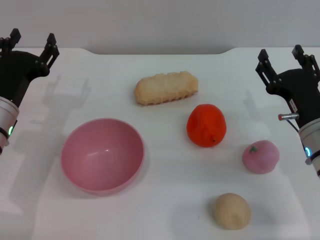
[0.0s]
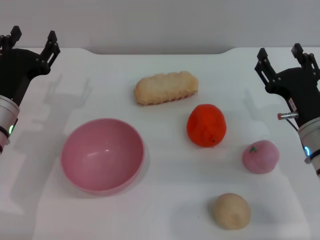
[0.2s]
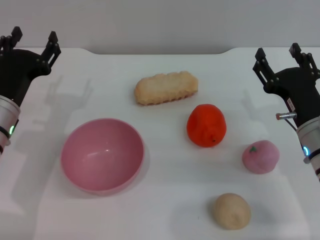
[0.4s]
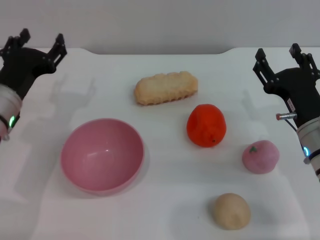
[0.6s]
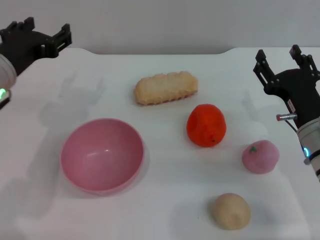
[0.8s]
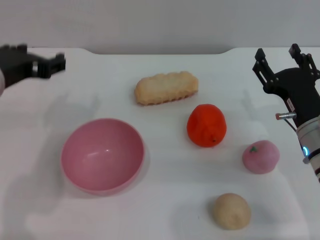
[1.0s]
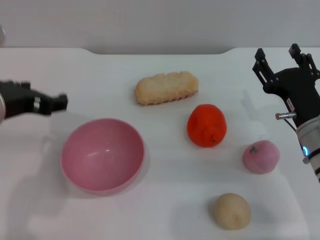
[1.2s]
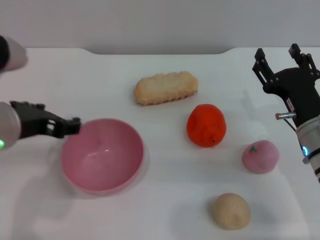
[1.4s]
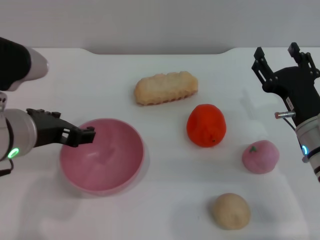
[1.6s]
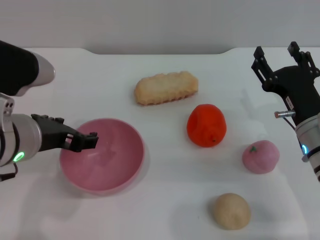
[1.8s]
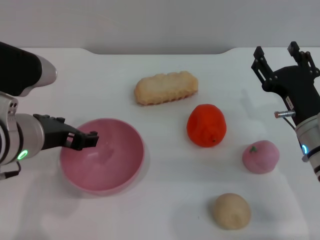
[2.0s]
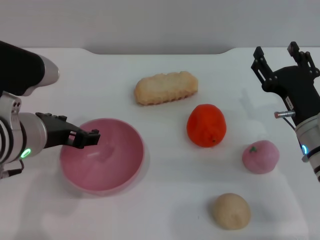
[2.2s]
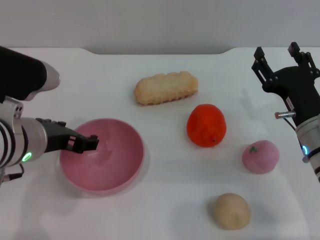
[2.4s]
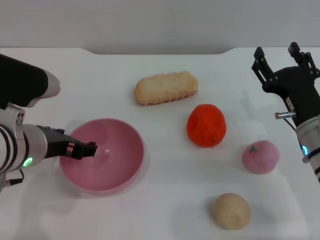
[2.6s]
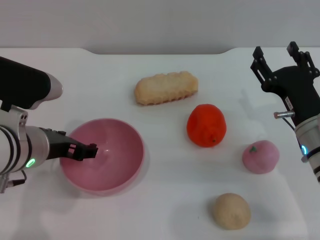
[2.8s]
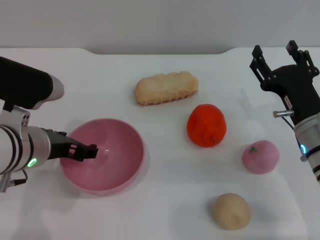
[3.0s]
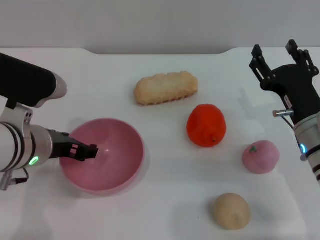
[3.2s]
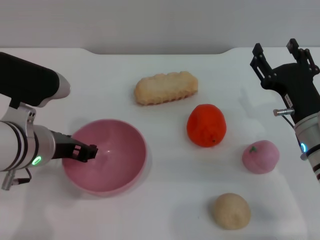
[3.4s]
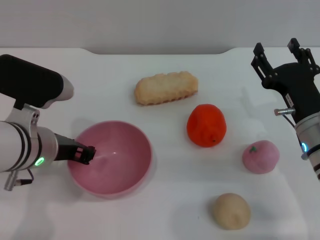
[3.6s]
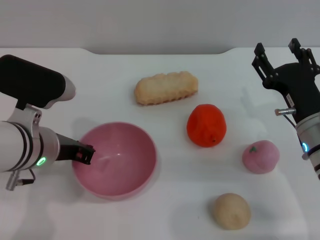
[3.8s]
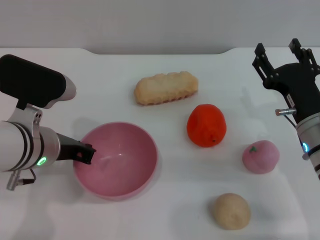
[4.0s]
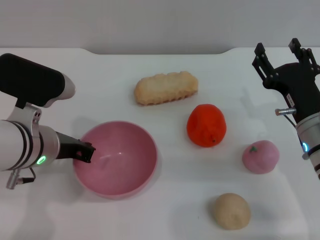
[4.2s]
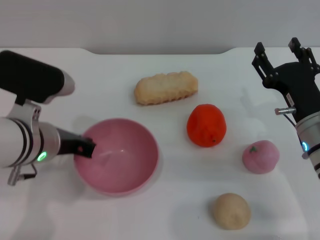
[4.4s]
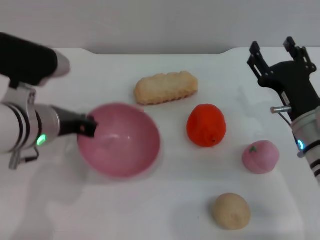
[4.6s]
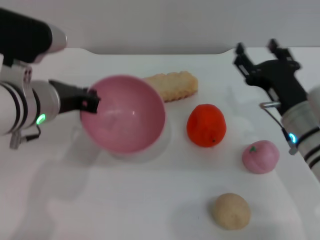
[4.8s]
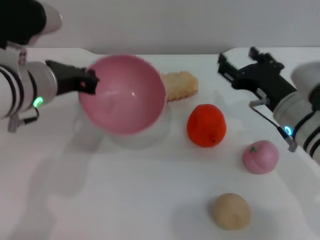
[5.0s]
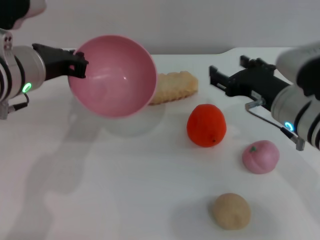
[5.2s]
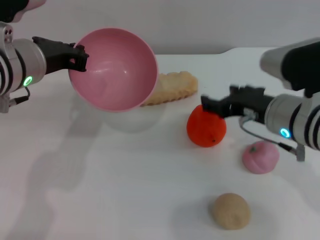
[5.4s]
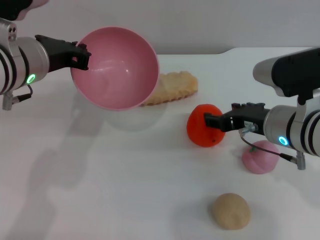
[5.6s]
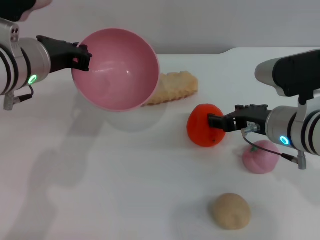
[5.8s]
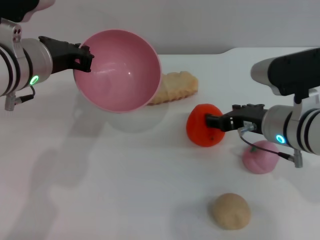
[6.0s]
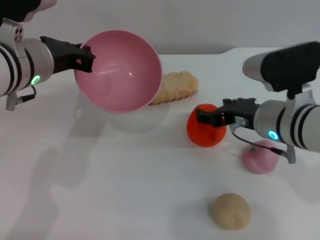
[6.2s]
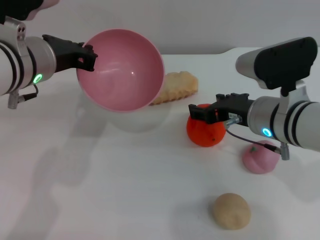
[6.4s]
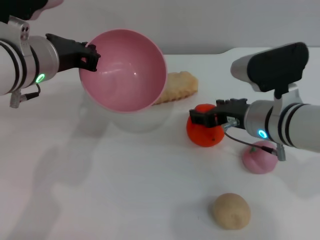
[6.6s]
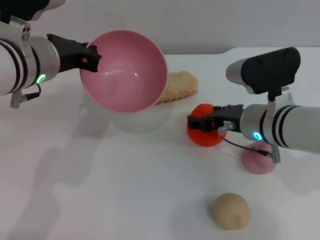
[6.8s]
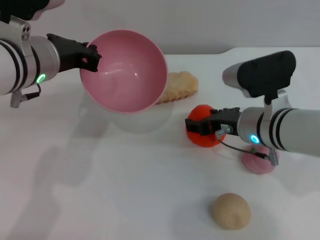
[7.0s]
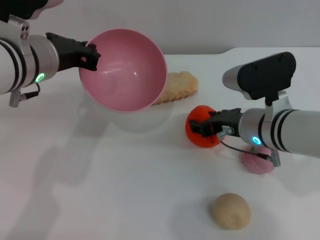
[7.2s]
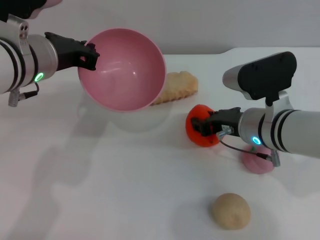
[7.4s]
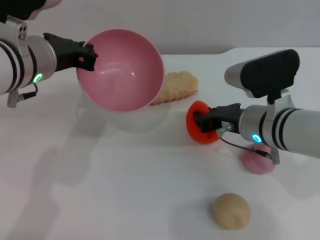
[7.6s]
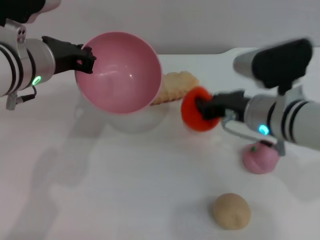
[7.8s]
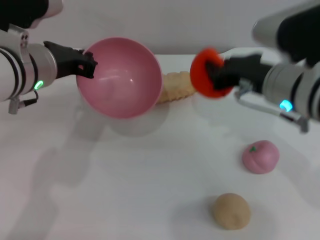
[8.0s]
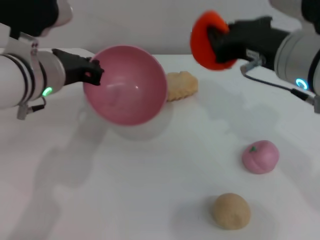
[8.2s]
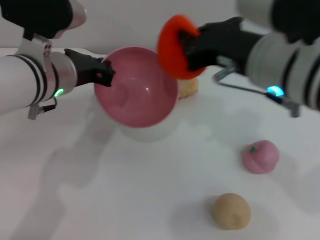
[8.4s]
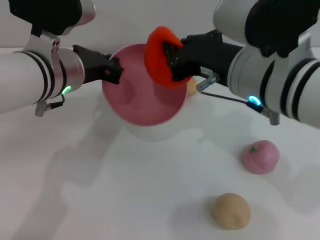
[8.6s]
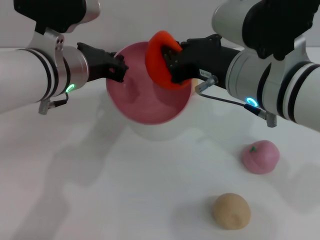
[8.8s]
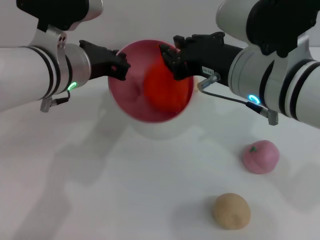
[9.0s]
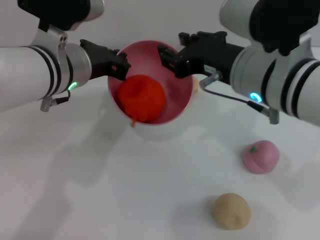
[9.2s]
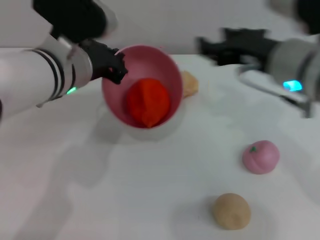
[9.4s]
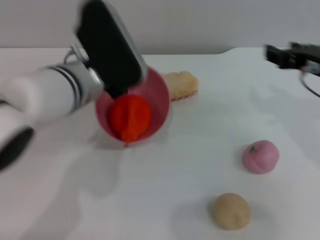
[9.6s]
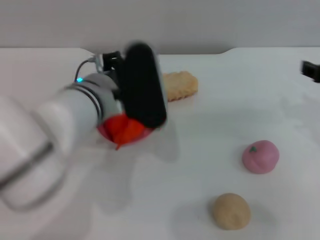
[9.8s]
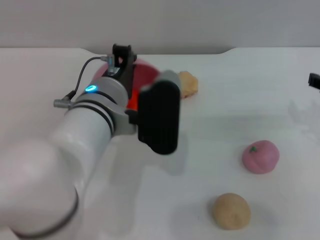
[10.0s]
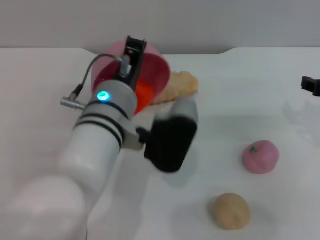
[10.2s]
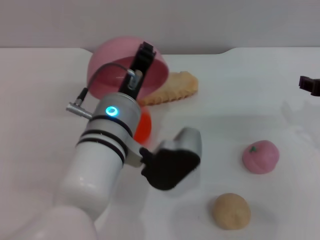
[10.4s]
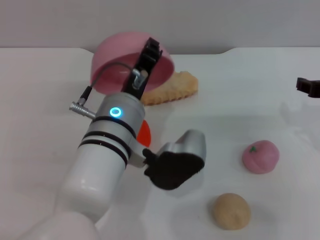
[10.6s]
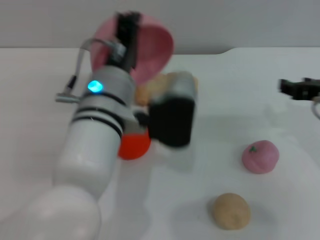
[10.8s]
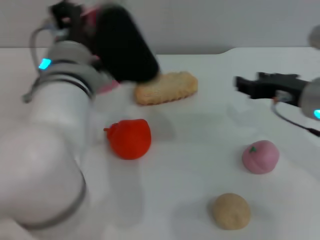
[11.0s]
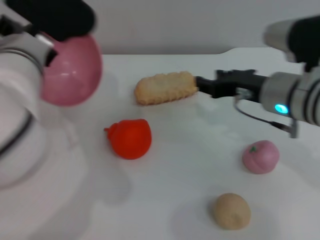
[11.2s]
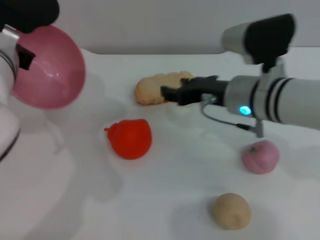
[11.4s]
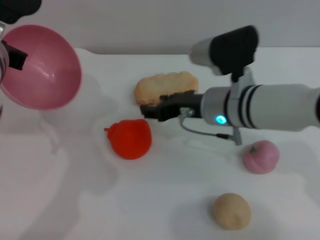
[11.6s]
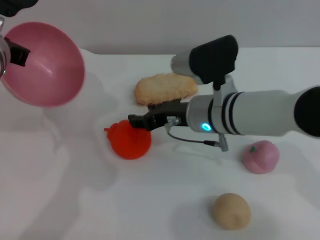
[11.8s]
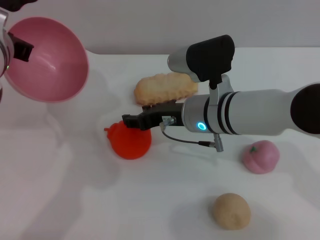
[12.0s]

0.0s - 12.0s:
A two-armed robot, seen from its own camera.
Task of the whole recording: put the orange into the pink bowl and pour it out repeatedly.
Step, 0.0s - 4.4s: Pick up the bowl with the left gripper.
Step, 4.8s - 8.2s: Pick up the orange with the right gripper.
Step, 8.4s - 9.8s: Place the orange into the bowl.
Step, 10.0s - 11.0s: Pour the orange out of the bowl.
0.0s - 1.6s: The left gripper goes about 15 cm upward, to the right and backward.
1.6s - 3.0s: The left gripper shifts roughly 5 cm downward.
3.0s - 4.4s: The left gripper closes up.
4.4s - 6.0s: The grippers both shift upward by some 5 cm.
6.0s - 7.6s: The right gripper closes up.
7.6s - 9.0s: The right gripper is displaced upward by some 10 cm, and closes its fingers.
9.0s - 10.4s: The right gripper heads to the right, covering about 15 cm, and opens its fingers. Meanwhile the left gripper heads to the right, downward and backward, covering about 10 cm.
10.4s - 12.0s: The left gripper travels to the left, upward and forward by some 15 cm. The right gripper heads to the left, covering approximately 20 cm.

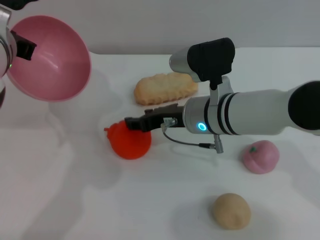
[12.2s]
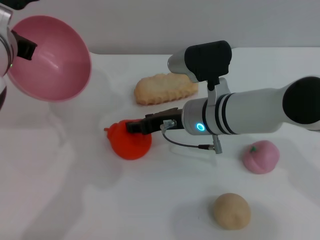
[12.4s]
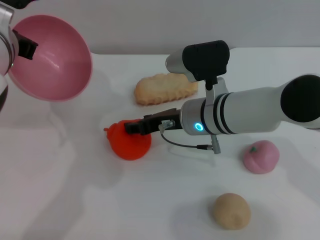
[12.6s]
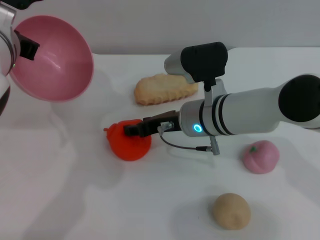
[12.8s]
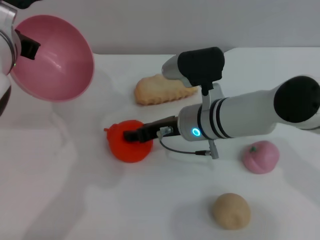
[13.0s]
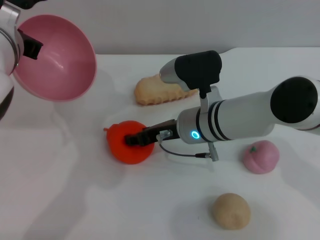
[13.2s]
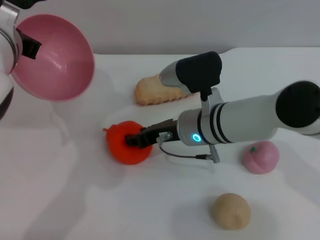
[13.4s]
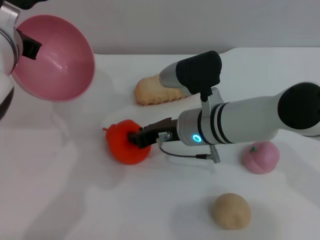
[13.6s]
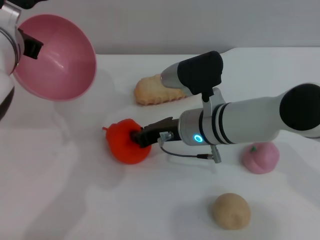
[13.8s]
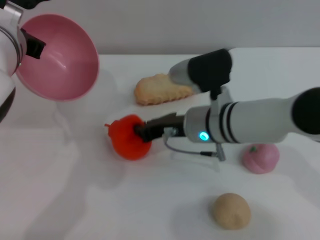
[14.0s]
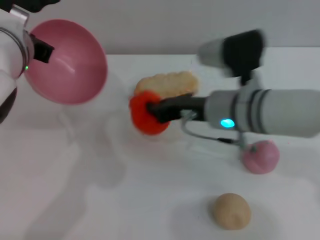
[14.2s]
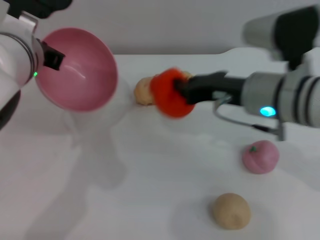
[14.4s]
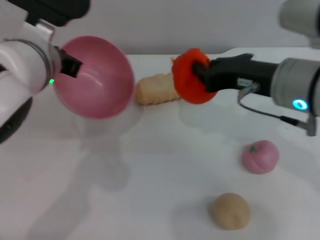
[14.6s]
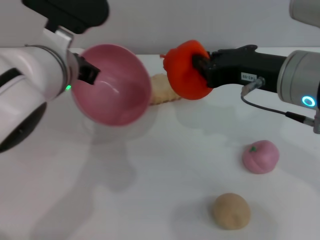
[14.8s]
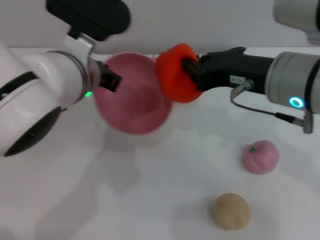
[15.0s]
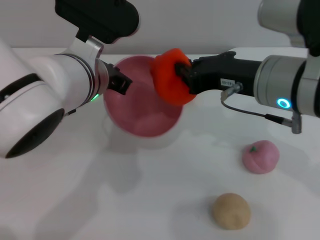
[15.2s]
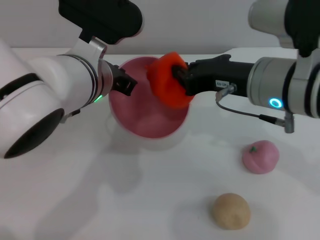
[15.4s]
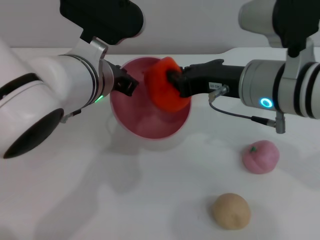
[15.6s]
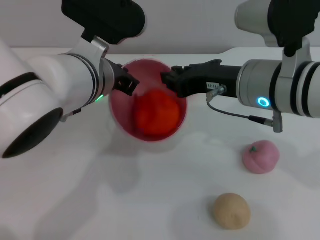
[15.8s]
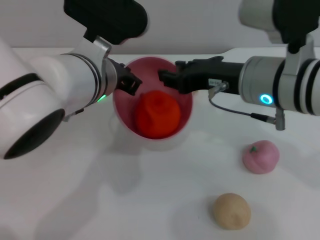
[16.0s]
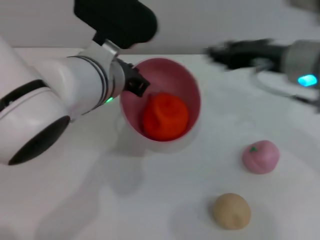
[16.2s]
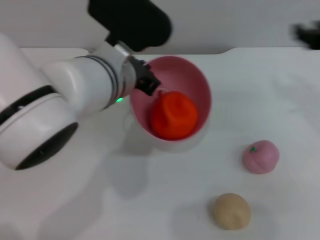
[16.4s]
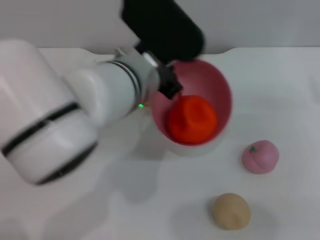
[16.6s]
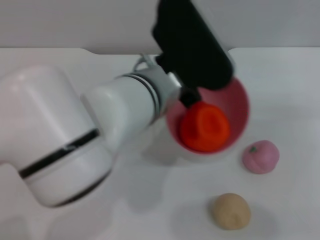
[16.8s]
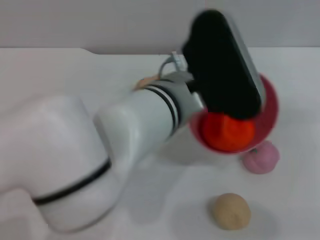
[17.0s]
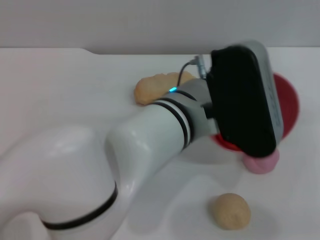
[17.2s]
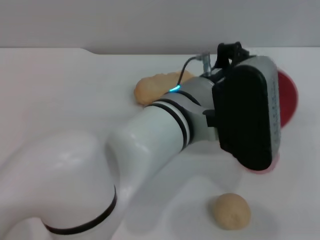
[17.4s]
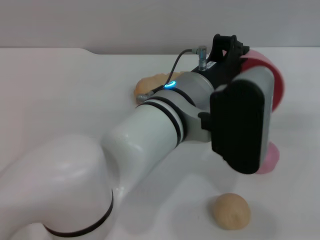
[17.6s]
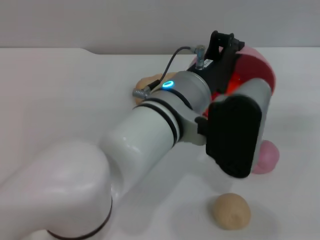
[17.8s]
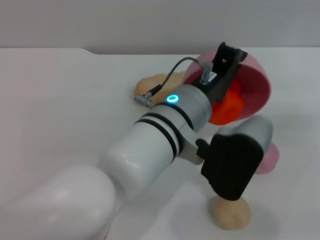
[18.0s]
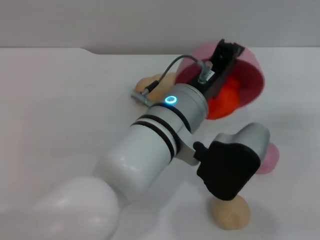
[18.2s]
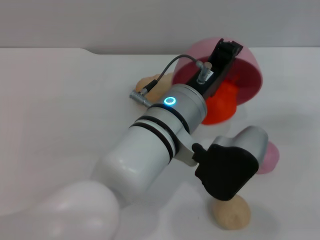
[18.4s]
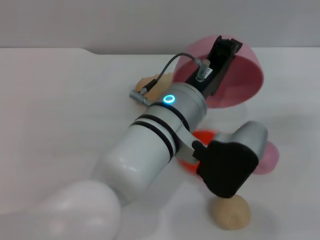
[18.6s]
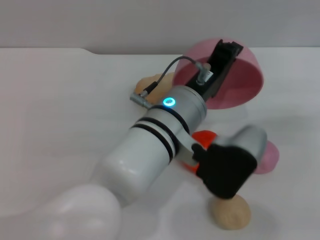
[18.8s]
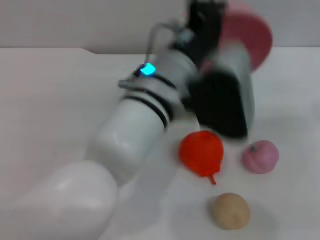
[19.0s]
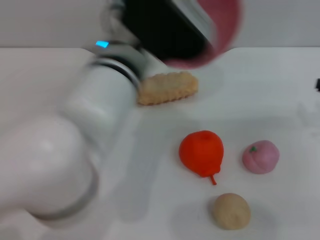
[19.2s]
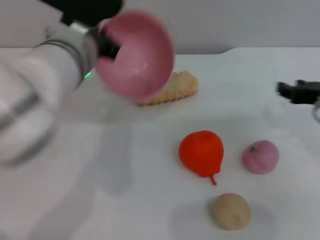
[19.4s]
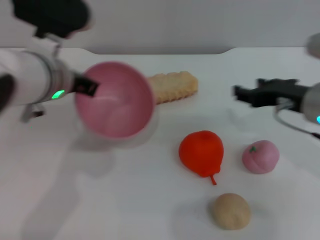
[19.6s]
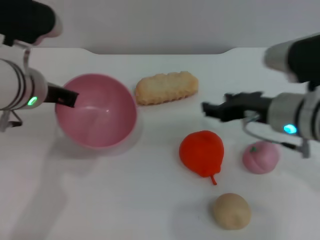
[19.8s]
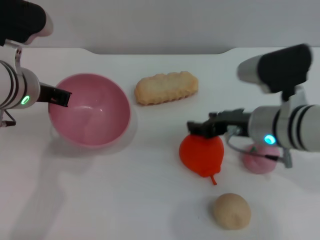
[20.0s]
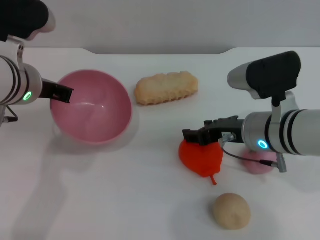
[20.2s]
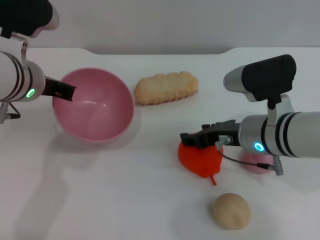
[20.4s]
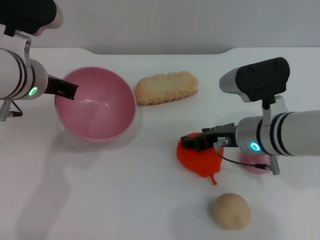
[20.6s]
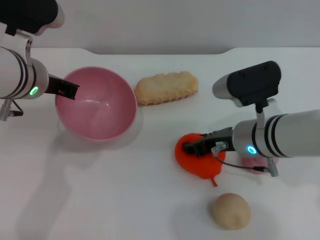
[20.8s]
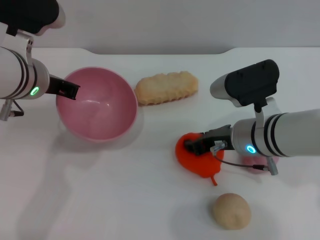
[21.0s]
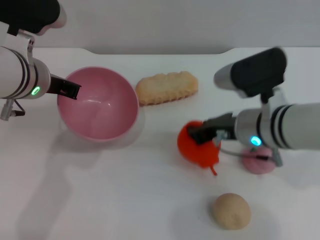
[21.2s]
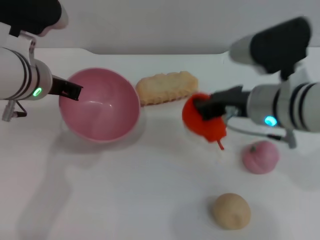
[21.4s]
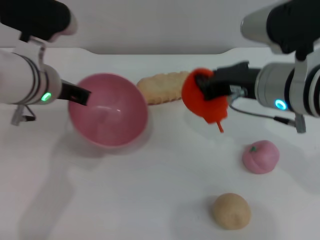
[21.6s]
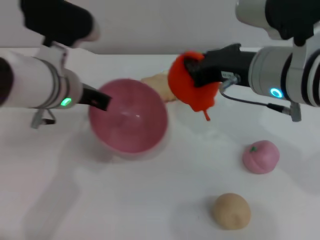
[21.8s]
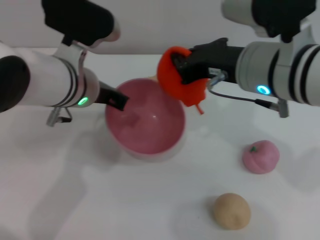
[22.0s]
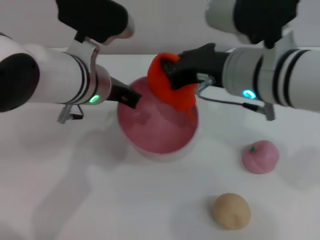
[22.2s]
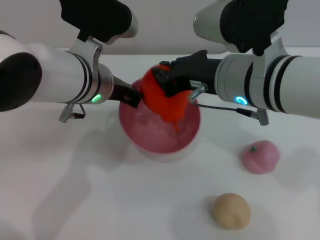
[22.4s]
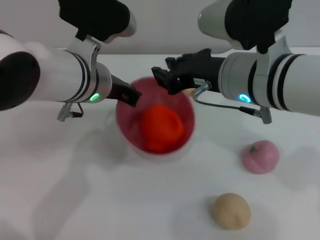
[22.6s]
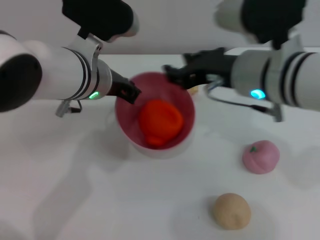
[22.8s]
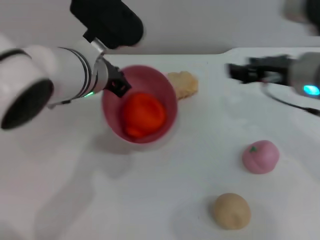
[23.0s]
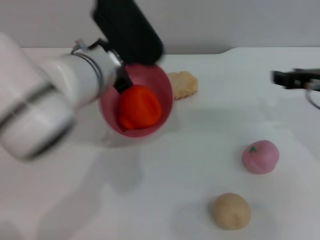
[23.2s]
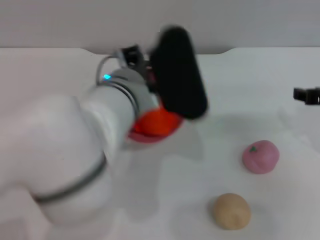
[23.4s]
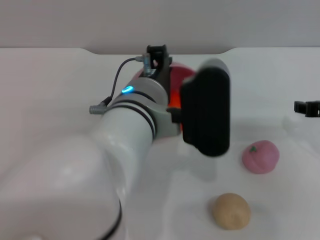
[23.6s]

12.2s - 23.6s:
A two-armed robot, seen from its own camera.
Task of the whole recording: put the orange into the pink bowl and pour it out repeatedly.
Step, 12.2s - 14.2s: Pick up the orange with the right gripper.
Step, 14.4s - 15.8s: Place the orange into the bowl.
Step, 16.0s - 18.6s: Pour the orange out of the bowl.
Step, 18.8s - 21.4s: Pick up the orange with the right gripper.
Step, 21.6s - 22.8s: Place the orange into the bowl.
12.2s - 13.6s: The grippers make only small movements.
13.6s - 15.0s: The left gripper travels to the right by some 5 cm. Meanwhile the right gripper travels upward, to the right and backward by about 15 cm, and closes its fingers.
15.0s - 16.4s: The right gripper goes some 10 cm to the right, and opens.
16.4s - 17.8s: The grippers both shift to the right by about 10 cm.
17.8s - 19.4s: The right gripper moves to the left, approximately 10 cm; the left gripper goes about 10 cm to the left and forward.
19.4s - 20.8s: The right gripper travels to the left and downward by about 15 cm. The left gripper goes about 5 cm to the left.
20.8s - 22.2s: The left gripper shifts roughly 5 cm to the right. The right gripper moves upward, roughly 10 cm, and closes its fingers.
22.2s - 23.6s: The left gripper is displaced to the right and backward by some 10 cm. The right gripper travels to the right by roughly 15 cm, and opens.
